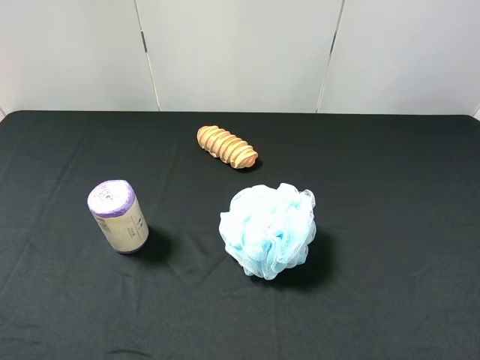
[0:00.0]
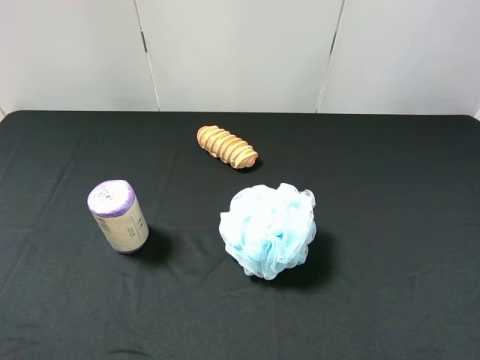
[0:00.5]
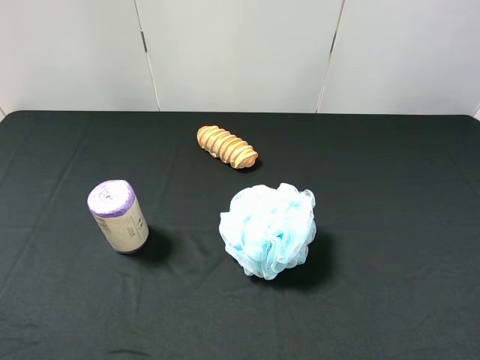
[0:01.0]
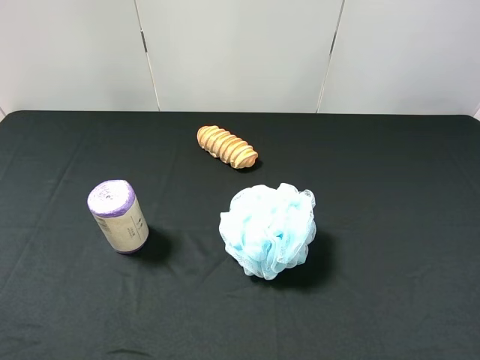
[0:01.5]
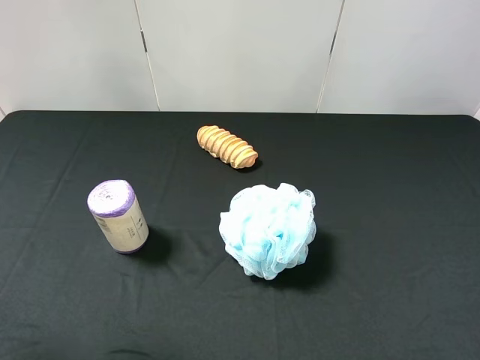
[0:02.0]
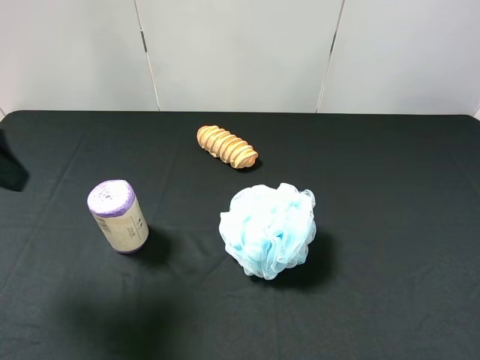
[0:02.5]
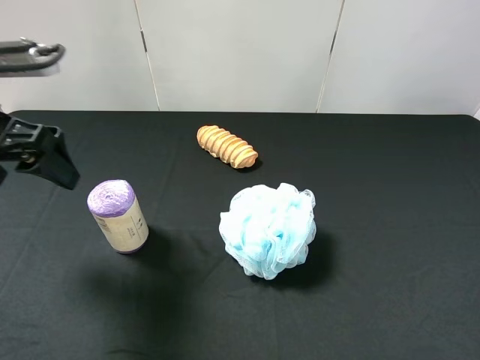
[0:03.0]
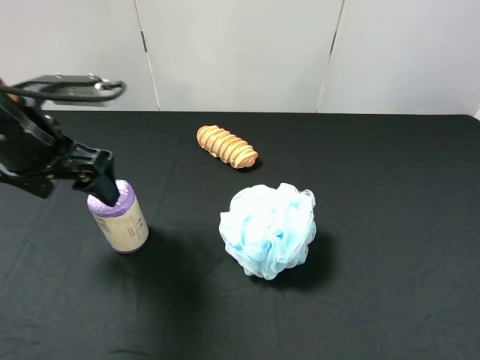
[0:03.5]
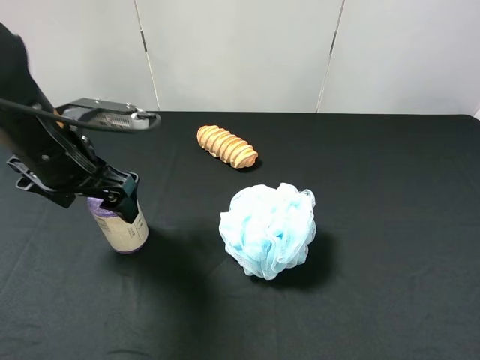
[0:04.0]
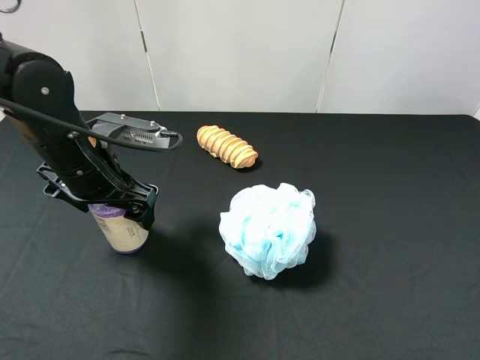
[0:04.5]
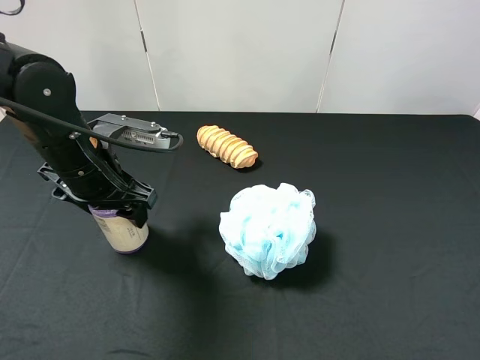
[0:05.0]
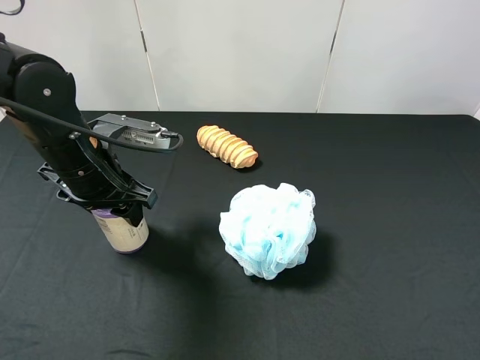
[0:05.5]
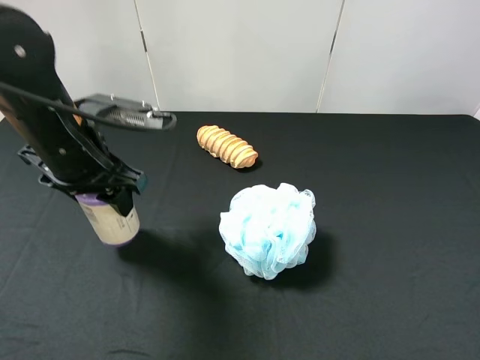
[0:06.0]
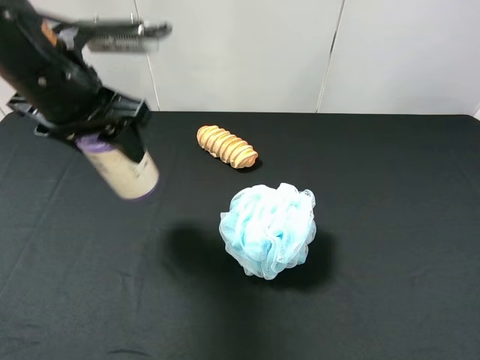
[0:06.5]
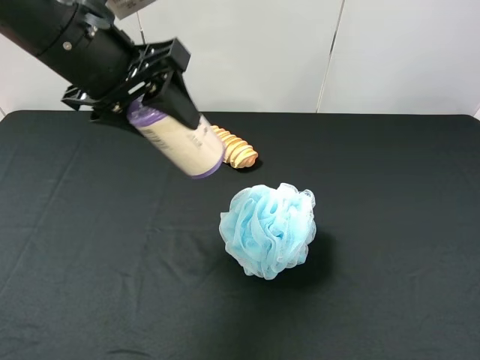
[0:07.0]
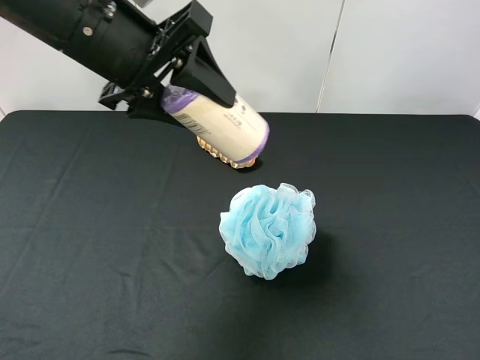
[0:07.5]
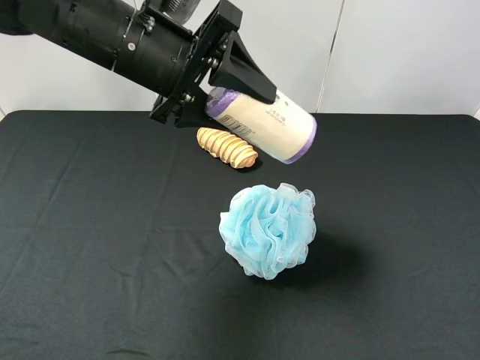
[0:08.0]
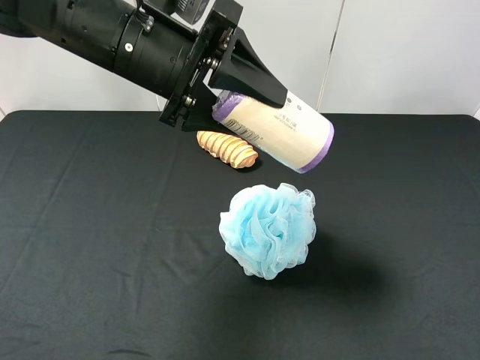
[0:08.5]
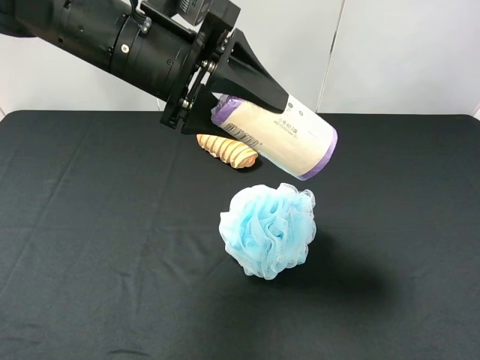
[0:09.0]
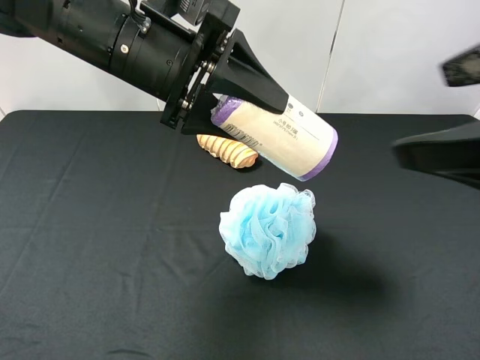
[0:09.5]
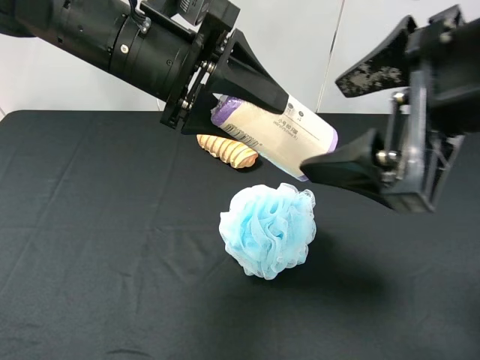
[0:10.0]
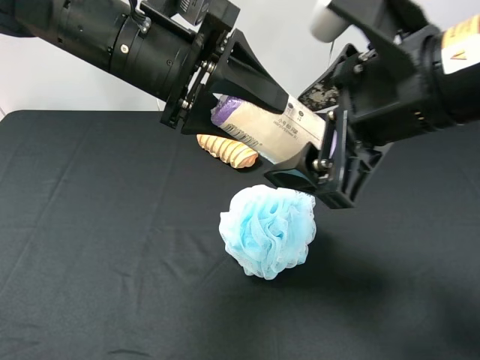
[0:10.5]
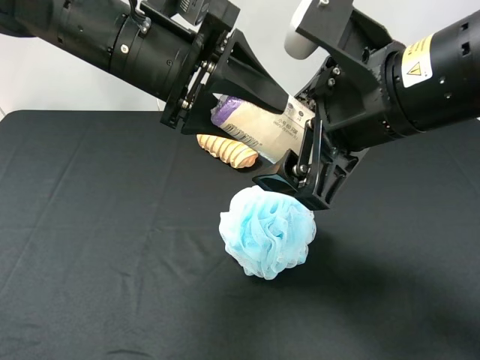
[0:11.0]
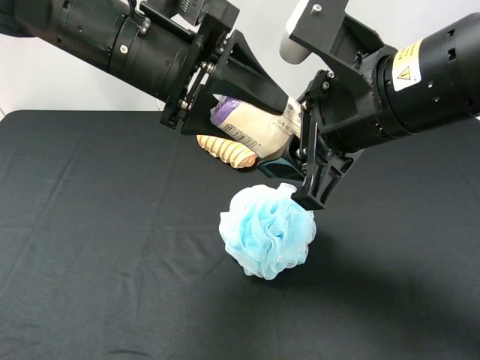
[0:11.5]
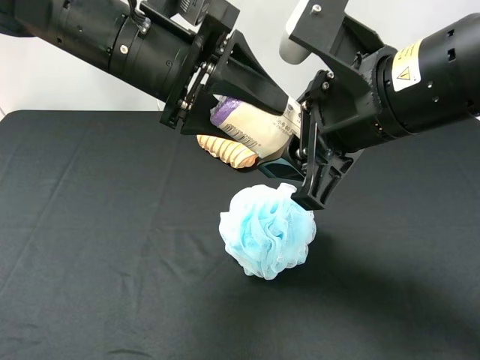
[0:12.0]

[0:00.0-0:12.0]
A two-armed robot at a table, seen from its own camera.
Task of the whole recording: use the left gripper to pick up the item and transfer it from the left gripper to the right gripper.
0:02.0 to 0:04.0: The left gripper moves forward, downward and to the right, some 25 cm.
0:04.0 to 0:06.0: The left gripper closes up.
0:06.0 to 0:08.0: The left gripper shifts roughly 10 cm to the right and upward.
0:08.0 to 0:10.0: The right gripper heads to the left, forward and upward, covering about 20 cm.
0:10.0 to 0:12.0: The right gripper moves roughly 10 cm, and closes its fingers.

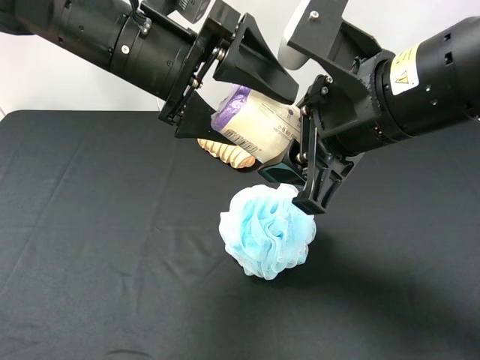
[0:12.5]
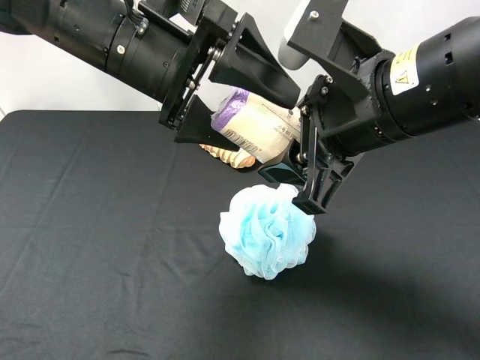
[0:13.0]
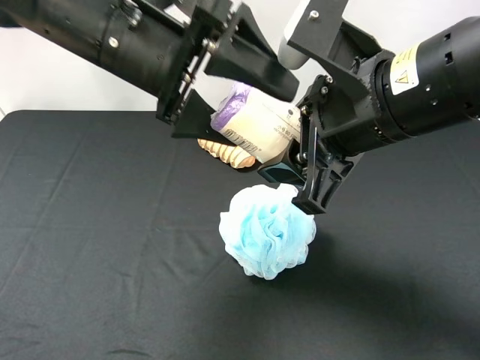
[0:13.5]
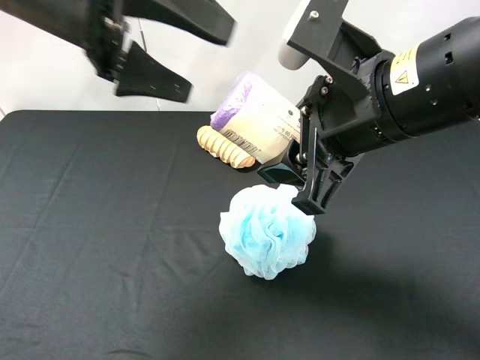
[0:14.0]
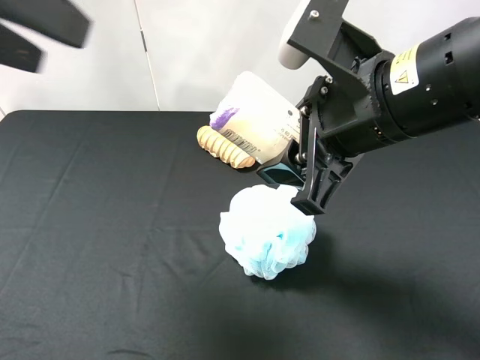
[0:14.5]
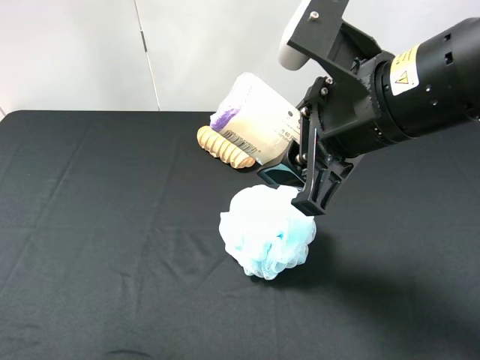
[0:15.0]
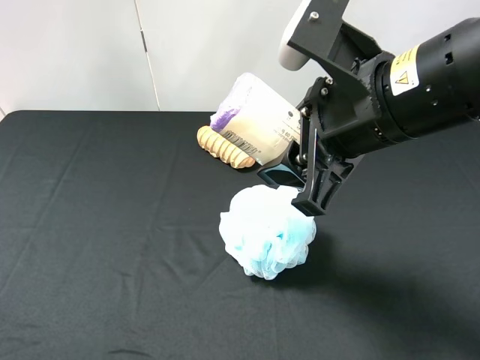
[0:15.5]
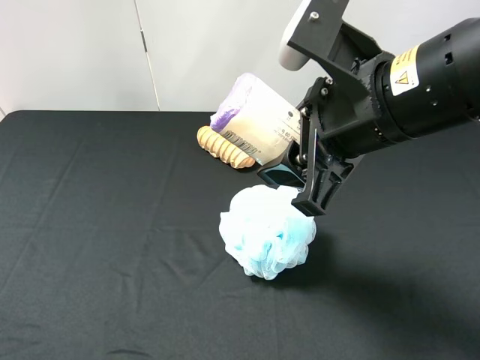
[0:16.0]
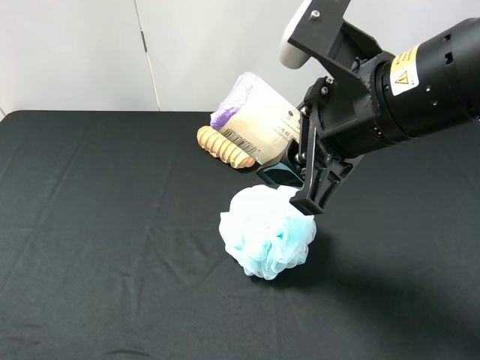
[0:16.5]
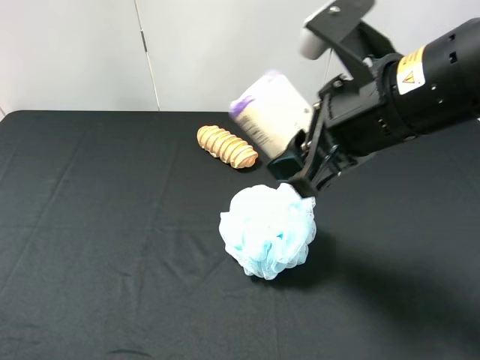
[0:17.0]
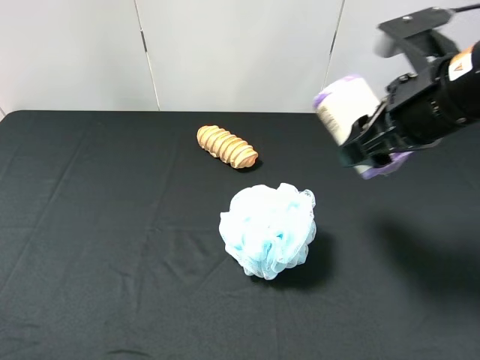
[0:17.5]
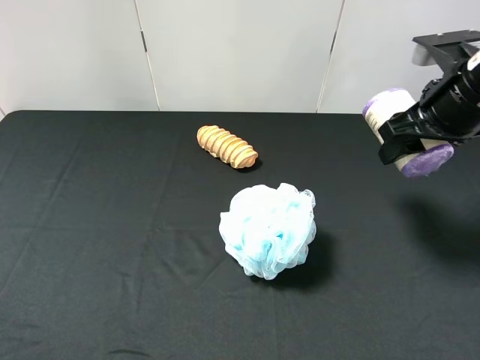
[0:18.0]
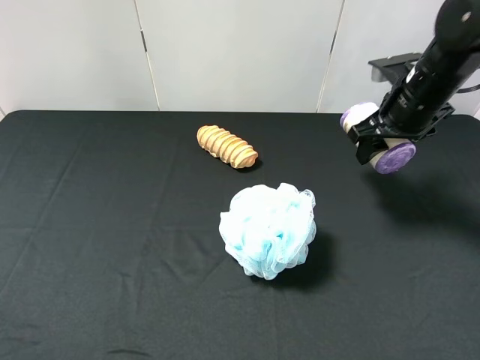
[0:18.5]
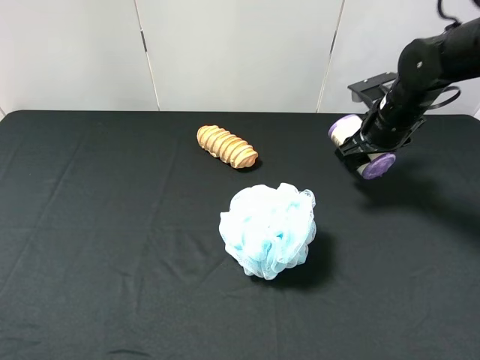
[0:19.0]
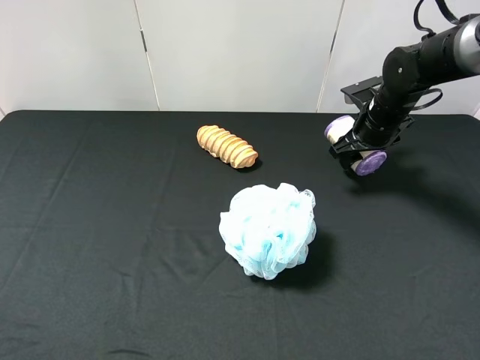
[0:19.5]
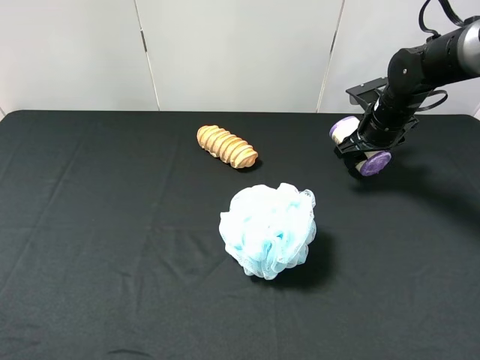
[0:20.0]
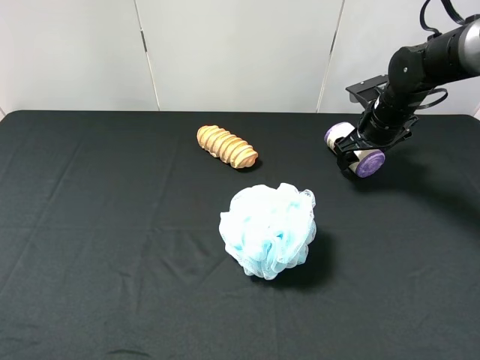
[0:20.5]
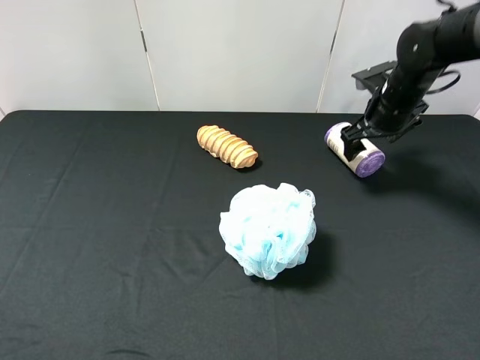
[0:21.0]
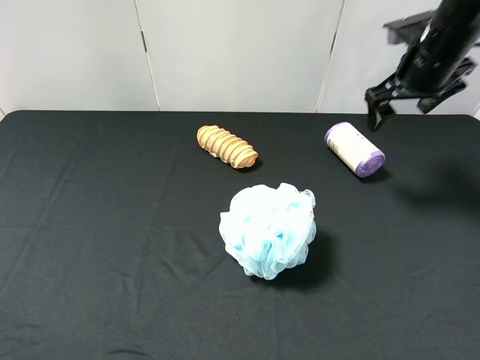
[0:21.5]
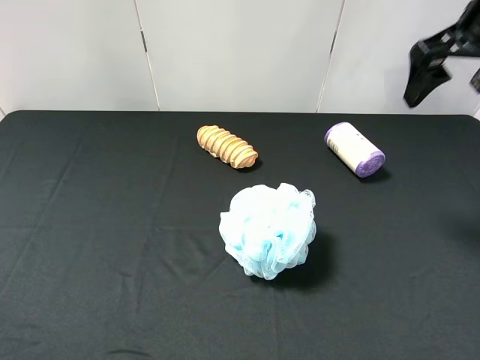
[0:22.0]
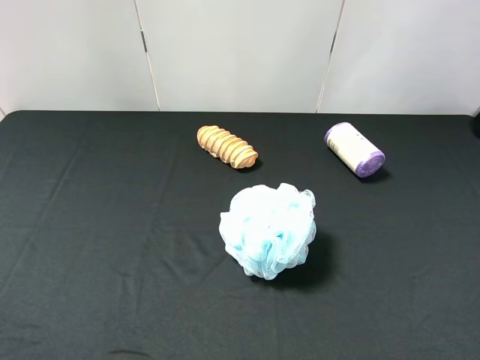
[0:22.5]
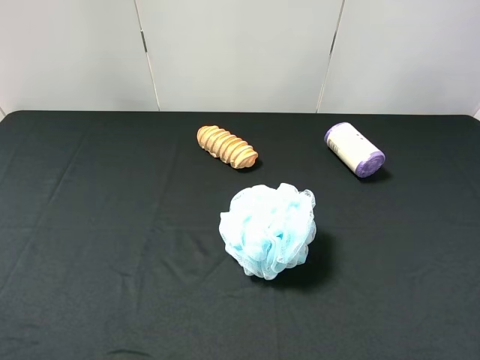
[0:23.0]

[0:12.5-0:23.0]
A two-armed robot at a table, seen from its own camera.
Task of the whole recording: use the left gripper to pick up the item and transfer it from the left gripper to the right gripper.
0:12.5 to 0:14.5: The left gripper goes some 20 cm to the left, upward and backward.
0:14.5 to 0:16.5: The left gripper goes about 20 cm backward, downward and to the left.
0:16.5 to 0:19.0: The right gripper travels forward, downward and to the right by some 25 cm.
0:19.0 to 0:21.0: The right gripper opens up.
0:21.0 to 0:23.0: The right gripper shifts approximately 40 cm backward and upward.
